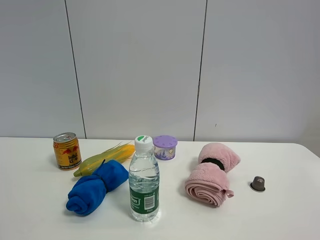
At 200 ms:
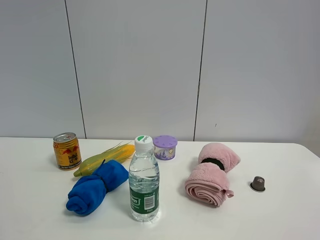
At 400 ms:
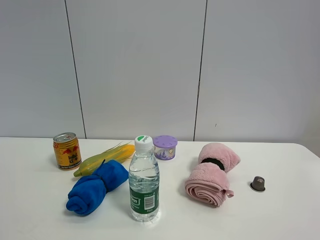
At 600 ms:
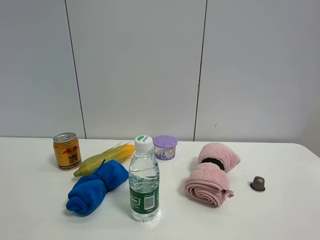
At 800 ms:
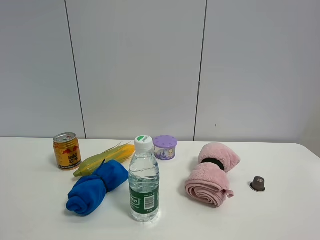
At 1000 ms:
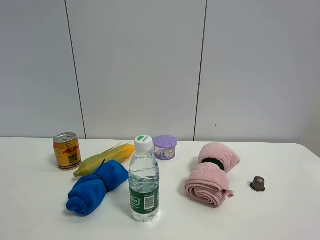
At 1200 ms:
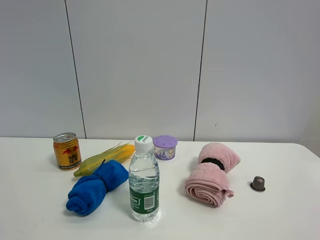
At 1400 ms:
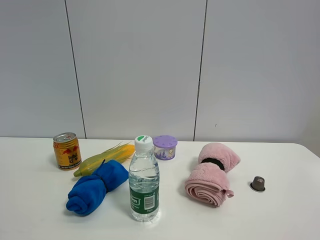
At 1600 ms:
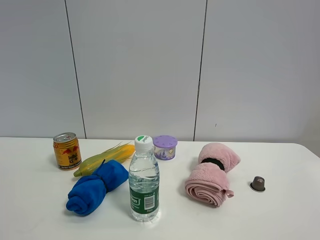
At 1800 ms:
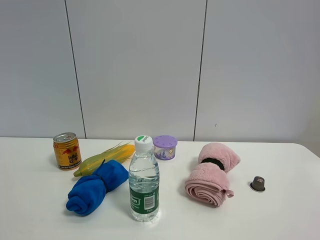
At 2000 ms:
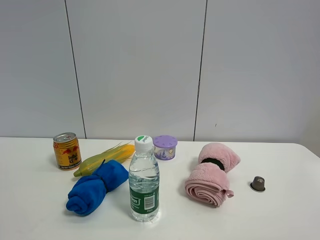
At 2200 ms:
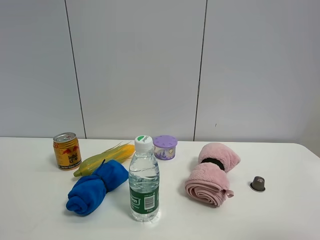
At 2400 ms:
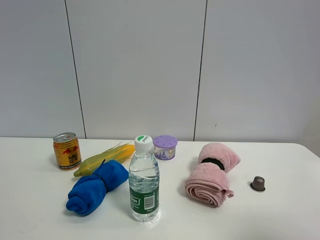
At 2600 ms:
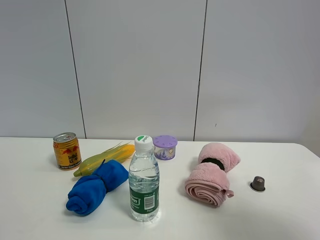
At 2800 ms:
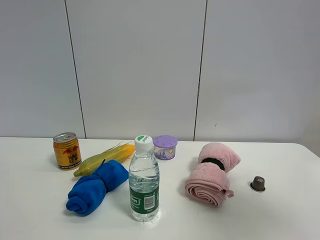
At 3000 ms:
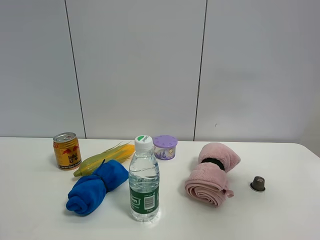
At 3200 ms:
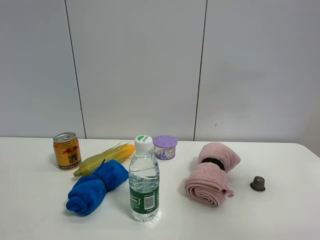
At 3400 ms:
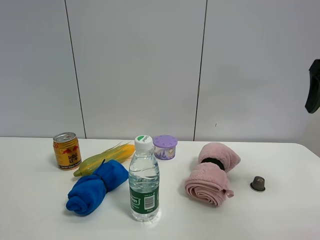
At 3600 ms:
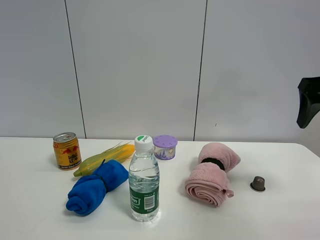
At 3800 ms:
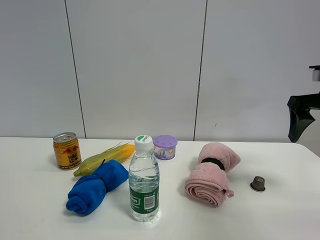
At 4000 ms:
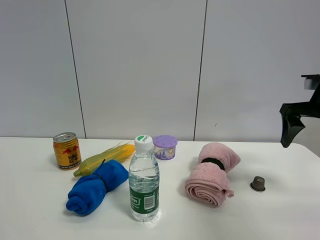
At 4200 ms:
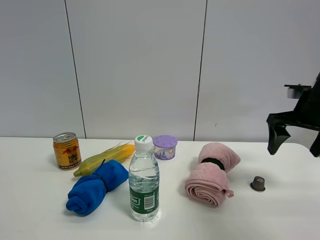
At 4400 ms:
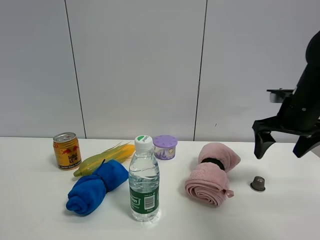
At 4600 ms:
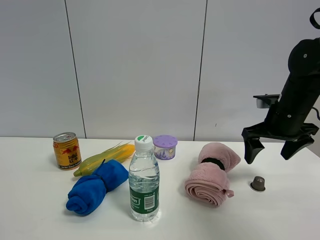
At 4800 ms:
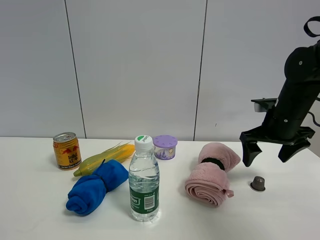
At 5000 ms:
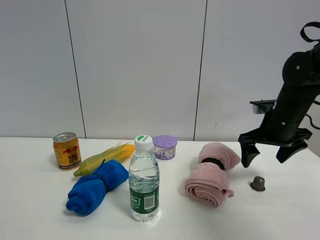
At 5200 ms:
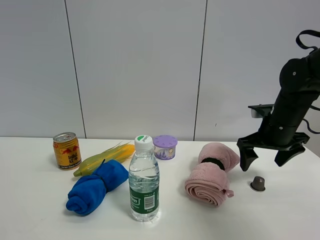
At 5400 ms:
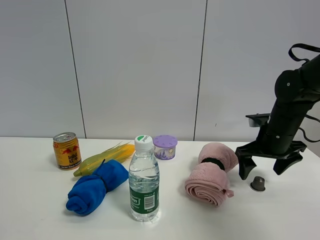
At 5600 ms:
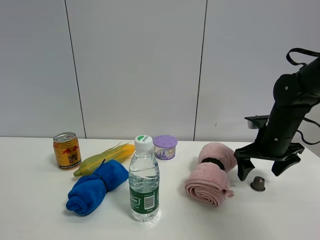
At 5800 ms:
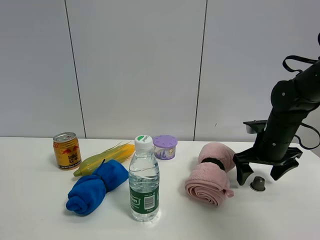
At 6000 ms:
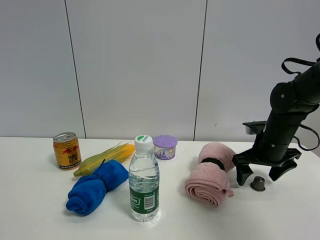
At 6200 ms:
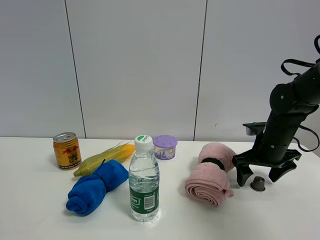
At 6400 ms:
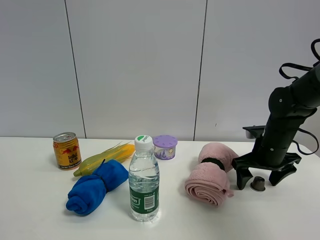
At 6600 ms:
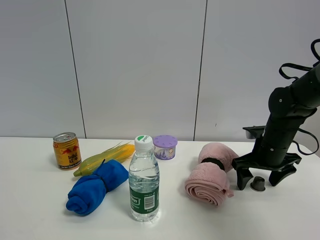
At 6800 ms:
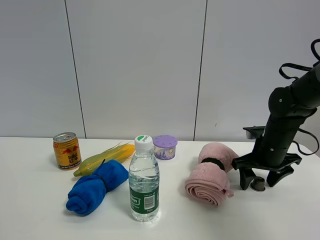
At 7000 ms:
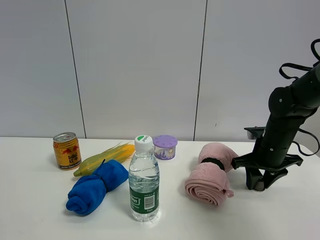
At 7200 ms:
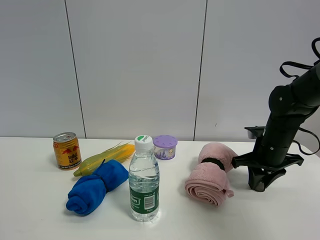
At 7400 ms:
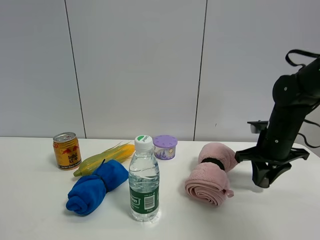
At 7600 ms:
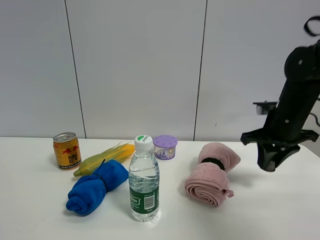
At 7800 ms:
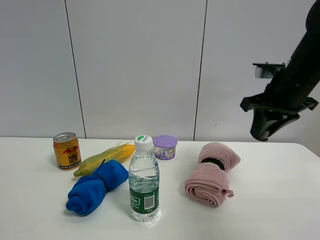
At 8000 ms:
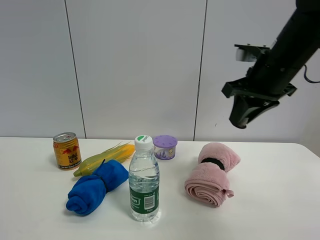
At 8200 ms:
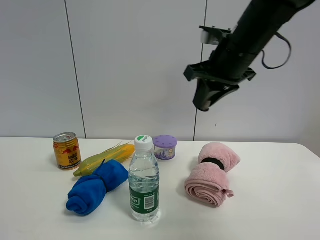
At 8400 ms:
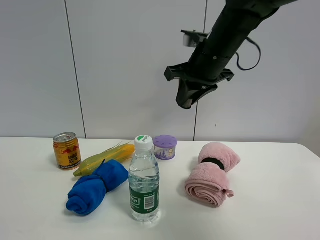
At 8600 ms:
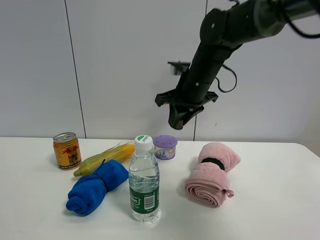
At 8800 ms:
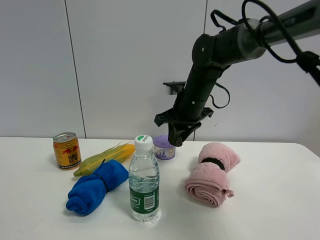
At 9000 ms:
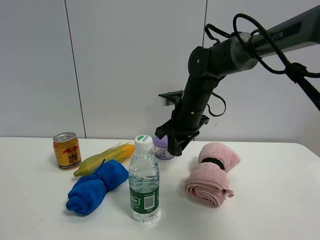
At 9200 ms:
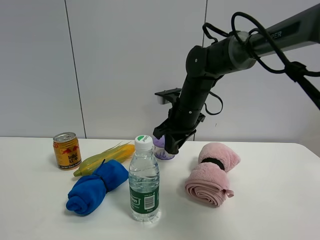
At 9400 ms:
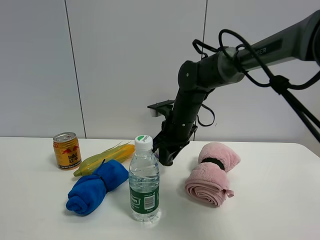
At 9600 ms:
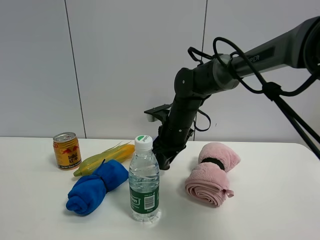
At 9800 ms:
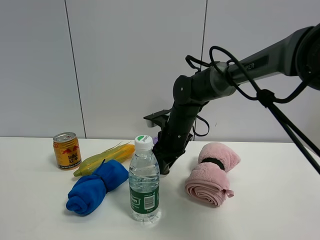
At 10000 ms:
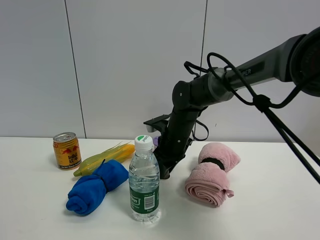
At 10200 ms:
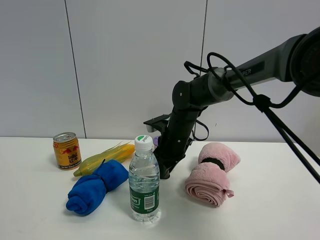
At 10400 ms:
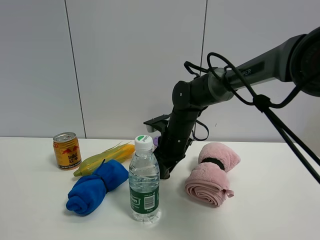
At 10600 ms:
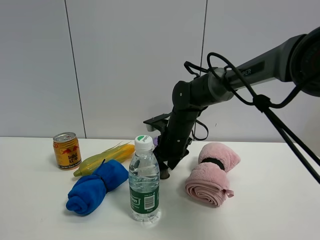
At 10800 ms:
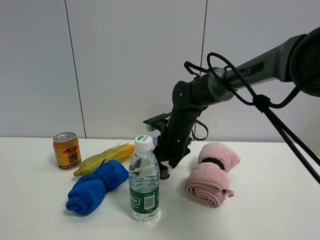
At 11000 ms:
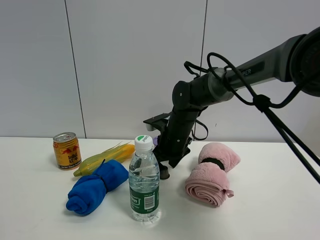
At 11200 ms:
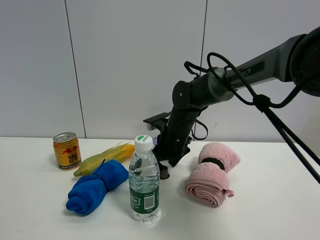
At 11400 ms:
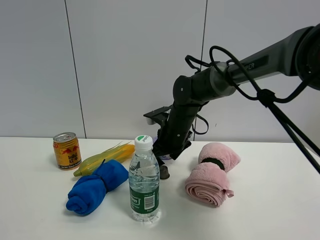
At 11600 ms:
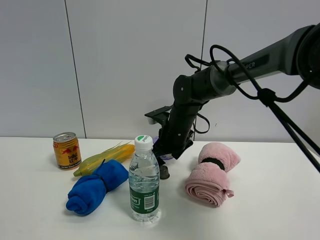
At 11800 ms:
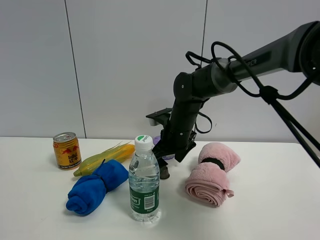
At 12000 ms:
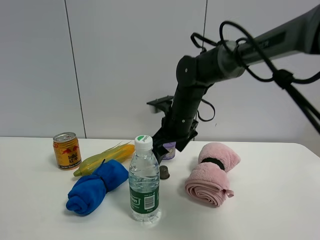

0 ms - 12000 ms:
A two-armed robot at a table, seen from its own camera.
Task of the whole recording: the gripper move the object.
Step, 0 ms - 7200 ms: Grasp the coffee capsule with the right gripper.
Step, 7400 ms - 12000 ms: Place the coffee capsule on the table with the right gripper.
0 ms - 1600 ms: Both grippers stay put.
1600 ms - 3000 ms: The right gripper moves forward, about 25 cm.
3000 ms - 4400 ms: The right gripper goes some 20 cm downward and forward.
4400 ms - 6000 ms: The right gripper shifts roughly 10 cm downward.
6000 ms - 7600 ms: The right gripper goes roughly 5 cm upward, and closes up.
7600 ms - 9000 ms: The right gripper heads to the left, covering some 20 cm.
9000 ms - 10400 ms: The right gripper travels downward by roughly 5 cm.
10400 ms - 12000 ms: The right gripper heads upward, covering about 5 cm, and opens up.

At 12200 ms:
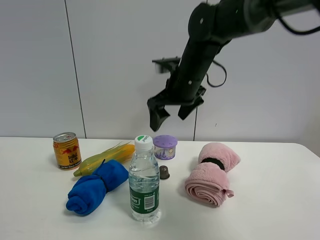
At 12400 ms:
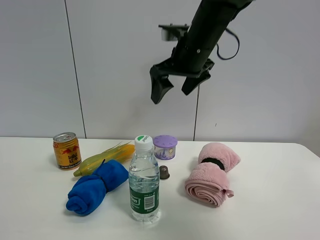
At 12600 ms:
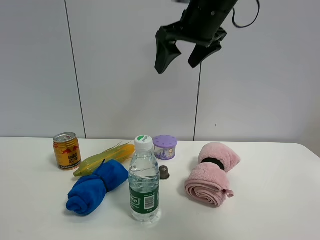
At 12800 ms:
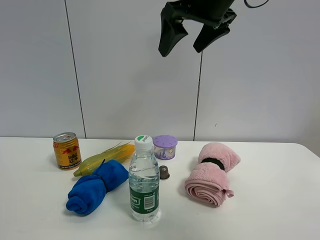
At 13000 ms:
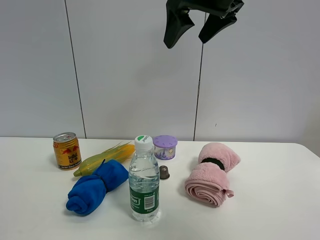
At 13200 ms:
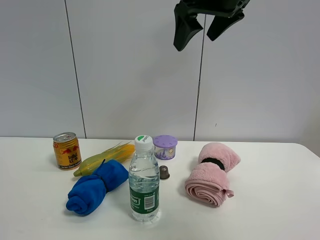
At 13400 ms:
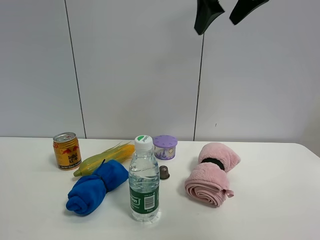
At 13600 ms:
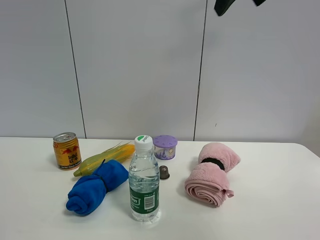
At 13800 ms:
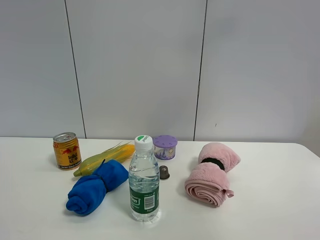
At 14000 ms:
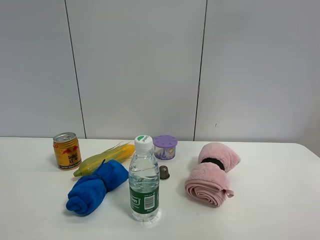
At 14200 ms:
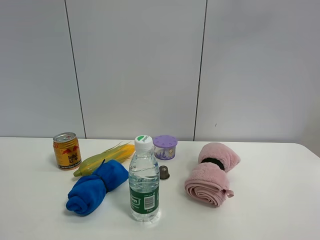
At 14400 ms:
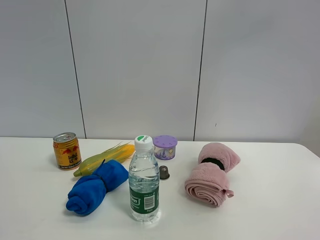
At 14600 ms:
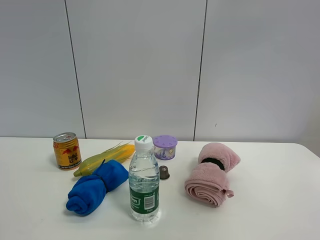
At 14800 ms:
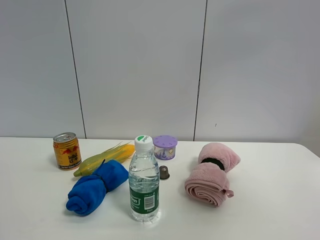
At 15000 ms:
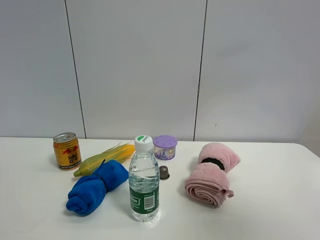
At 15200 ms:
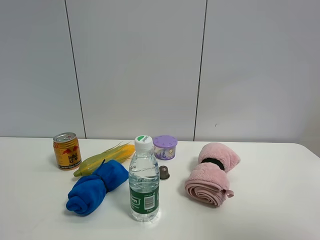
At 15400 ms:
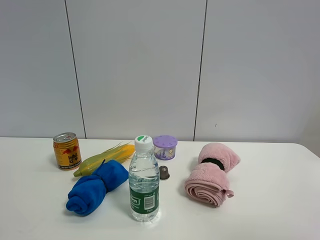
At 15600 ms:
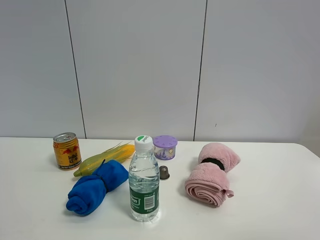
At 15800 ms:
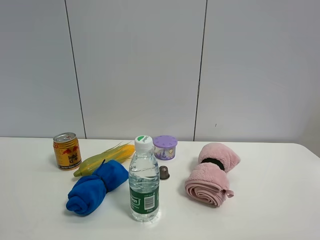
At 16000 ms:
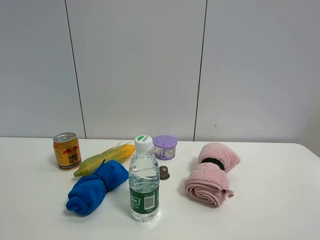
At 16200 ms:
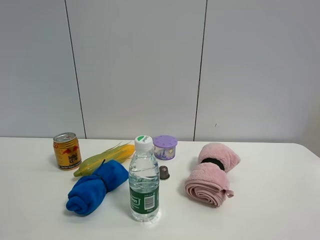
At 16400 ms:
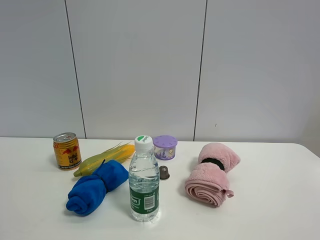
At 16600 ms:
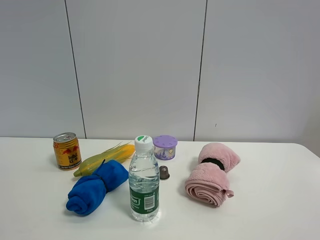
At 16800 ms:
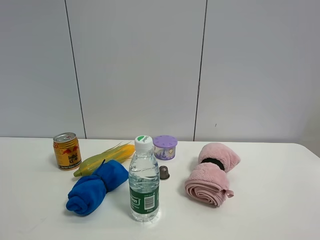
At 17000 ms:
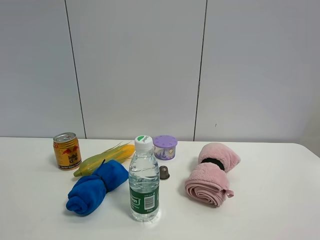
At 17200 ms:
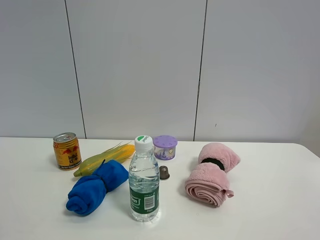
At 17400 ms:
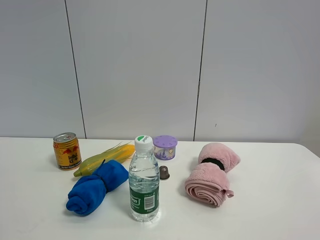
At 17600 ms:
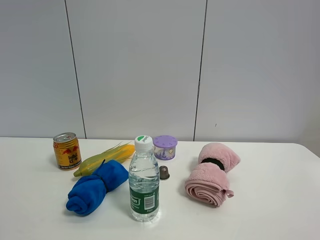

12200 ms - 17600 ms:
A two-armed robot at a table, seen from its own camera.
Task of the whole recording: the gripper move the object.
12200 ms - 13600 ms: The right gripper moves upward and to the right, roughly 25 cm.
13600 ms - 15000 ms: The right gripper travels backward and to the right by about 30 cm.
15000 ms - 16200 ms: The right gripper travels downward by roughly 20 cm.
16200 ms - 17600 ms: Both grippers stay put.

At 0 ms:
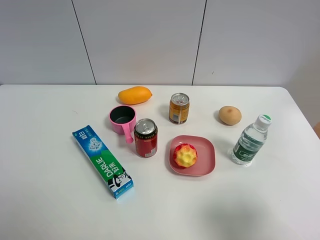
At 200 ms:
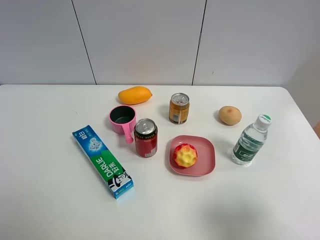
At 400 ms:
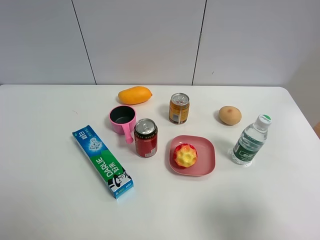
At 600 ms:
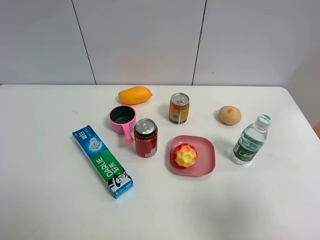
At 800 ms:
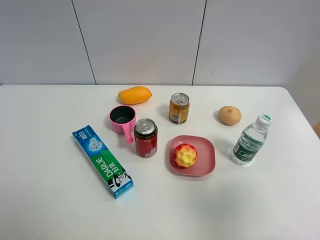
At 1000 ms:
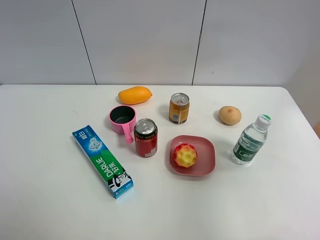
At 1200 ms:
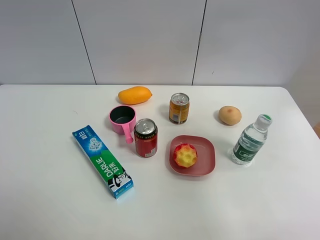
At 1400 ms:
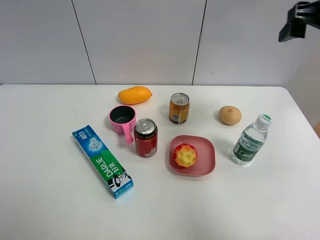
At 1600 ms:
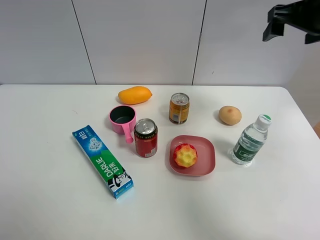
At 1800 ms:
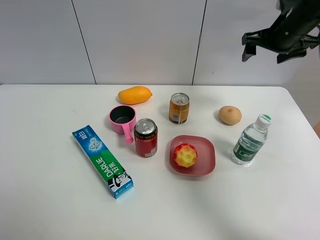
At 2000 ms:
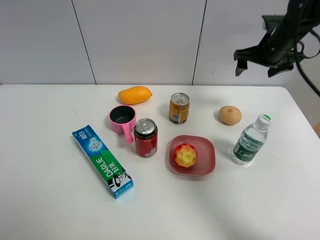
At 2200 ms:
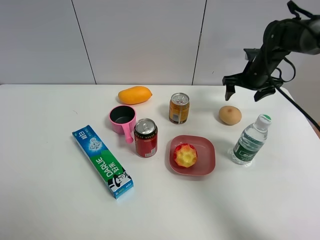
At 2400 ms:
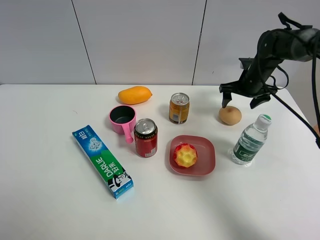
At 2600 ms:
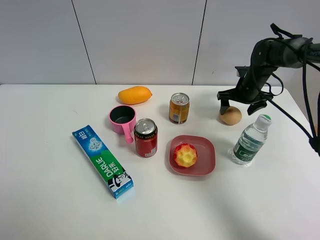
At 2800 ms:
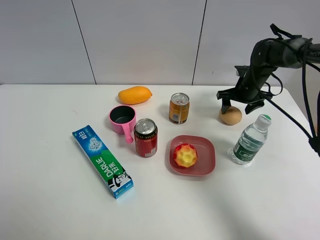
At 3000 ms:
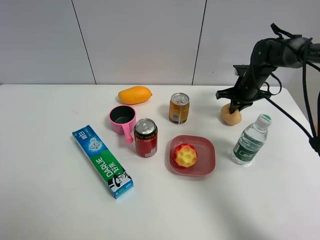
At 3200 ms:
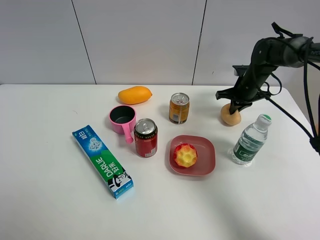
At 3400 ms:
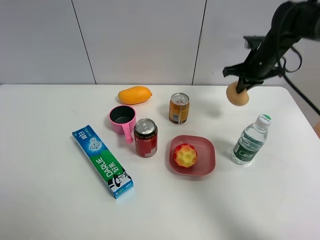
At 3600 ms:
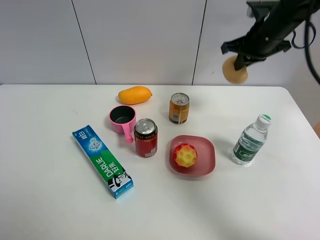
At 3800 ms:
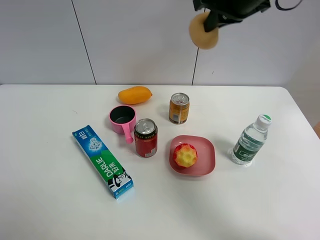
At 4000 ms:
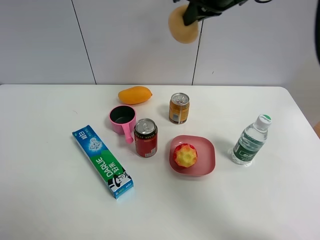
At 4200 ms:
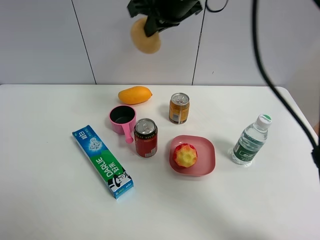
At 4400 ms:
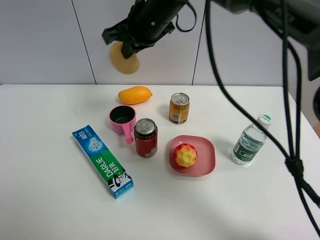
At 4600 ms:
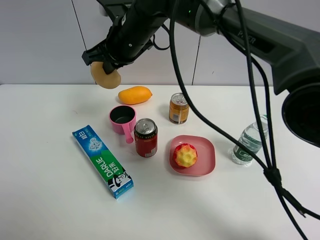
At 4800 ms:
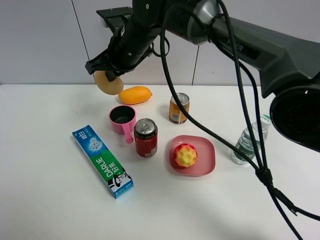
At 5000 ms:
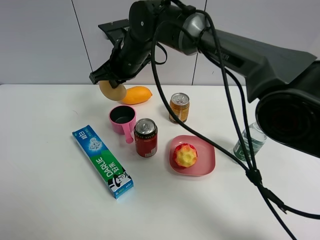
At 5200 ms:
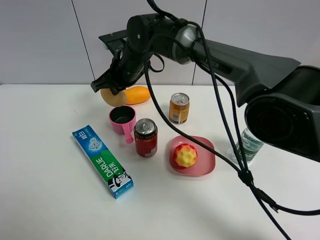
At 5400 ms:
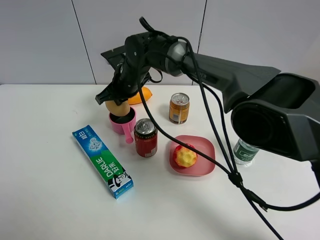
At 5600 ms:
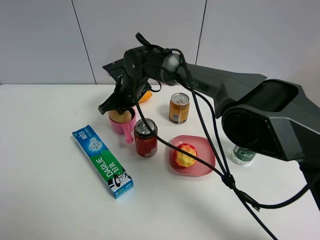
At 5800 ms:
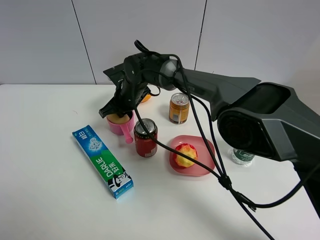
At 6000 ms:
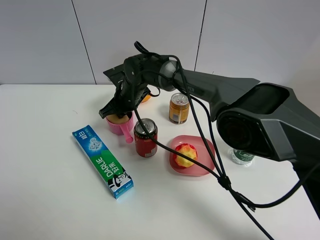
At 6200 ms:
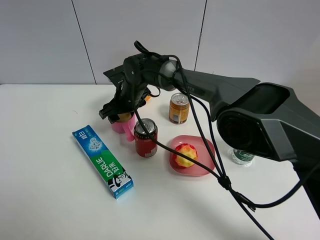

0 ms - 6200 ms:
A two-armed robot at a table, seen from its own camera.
Task of the whole recording: the gripper move the object.
Step, 0 ms - 2800 ms: Grasp the egg yolk pastry with the right gripper.
Step, 3000 ms - 6200 ms: Place the egg yolk pastry into the pink pot with the right gripper.
0 ms - 1600 ms: The right gripper travels forward by approximately 35 cm.
1600 ms - 3200 ms: The right gripper heads downward and forward, covering approximately 25 cm, and closes its fingers.
3200 ms - 4600 ms: The right gripper is displaced to the left and upward by roughly 35 cm.
4600 ms - 6200 ms: The right gripper heads downward, covering approximately 15 cm, and opens up.
